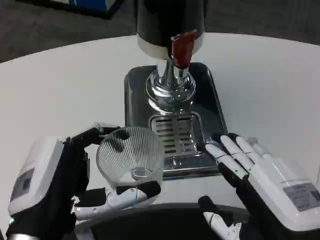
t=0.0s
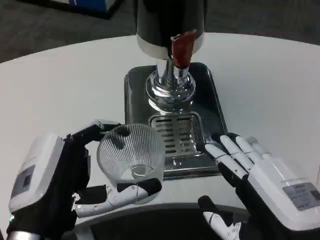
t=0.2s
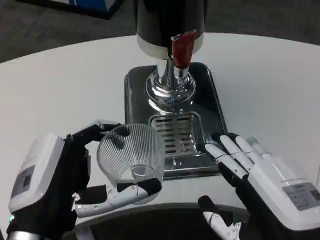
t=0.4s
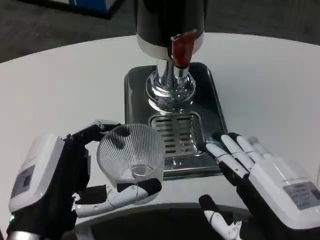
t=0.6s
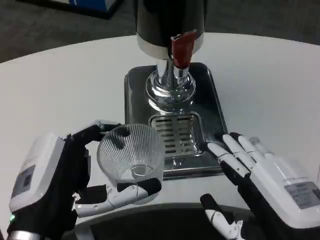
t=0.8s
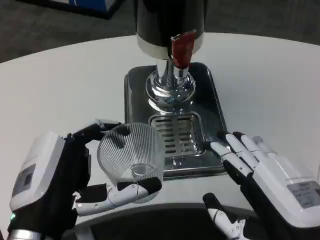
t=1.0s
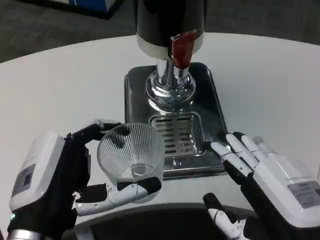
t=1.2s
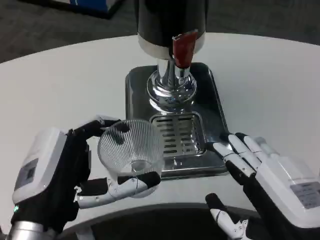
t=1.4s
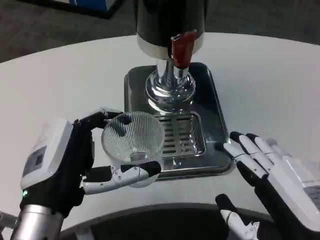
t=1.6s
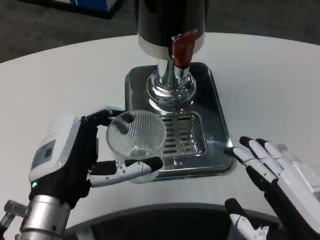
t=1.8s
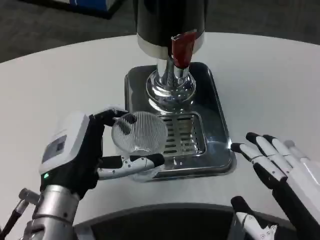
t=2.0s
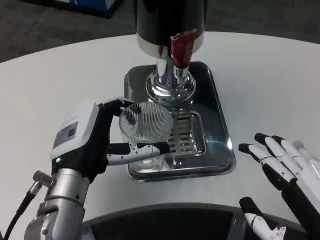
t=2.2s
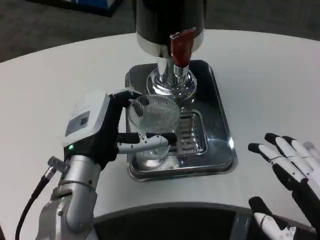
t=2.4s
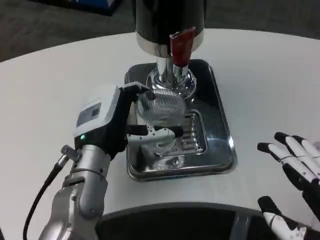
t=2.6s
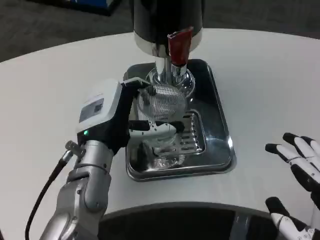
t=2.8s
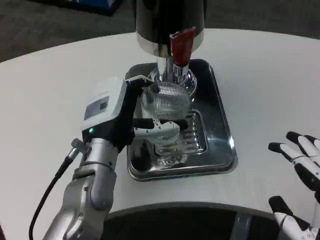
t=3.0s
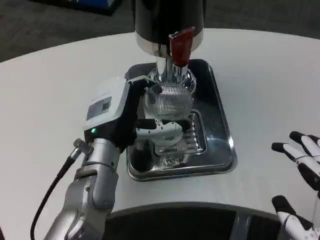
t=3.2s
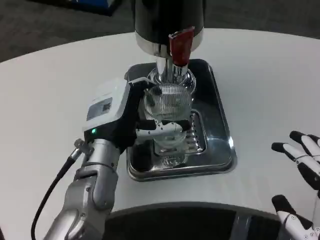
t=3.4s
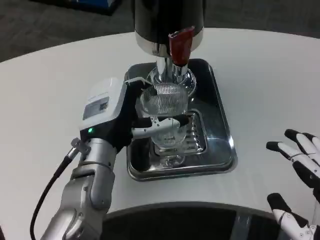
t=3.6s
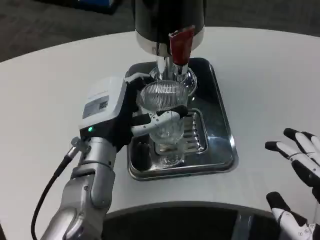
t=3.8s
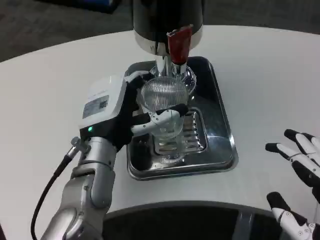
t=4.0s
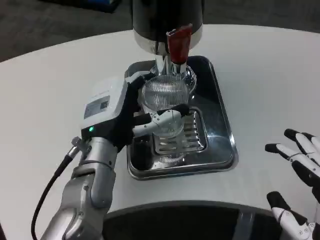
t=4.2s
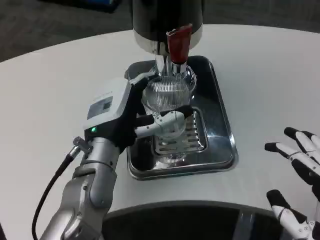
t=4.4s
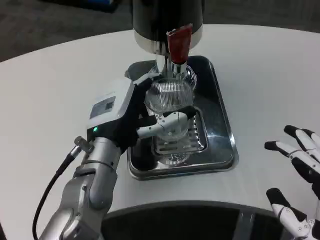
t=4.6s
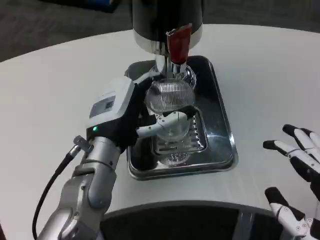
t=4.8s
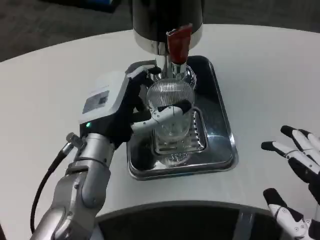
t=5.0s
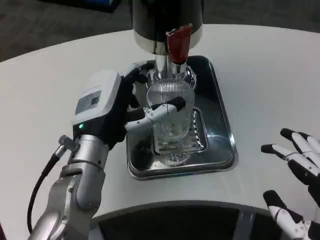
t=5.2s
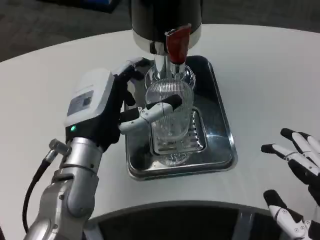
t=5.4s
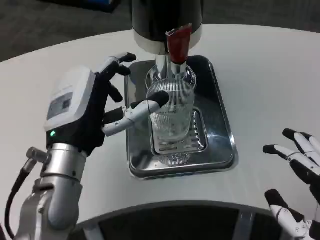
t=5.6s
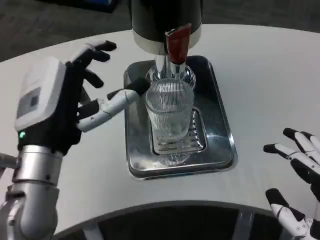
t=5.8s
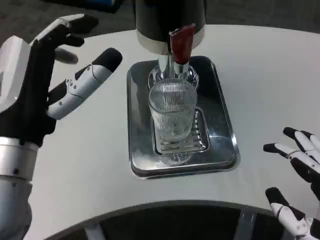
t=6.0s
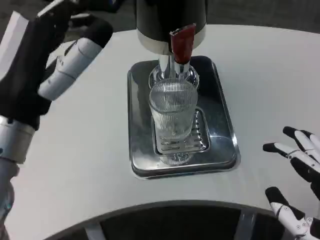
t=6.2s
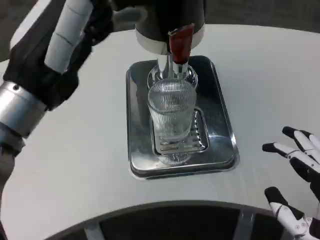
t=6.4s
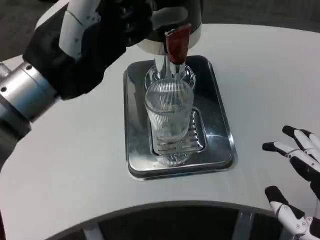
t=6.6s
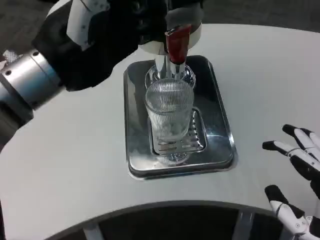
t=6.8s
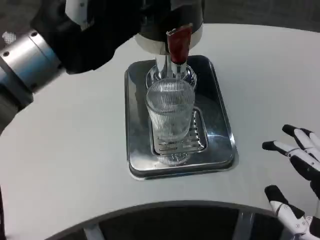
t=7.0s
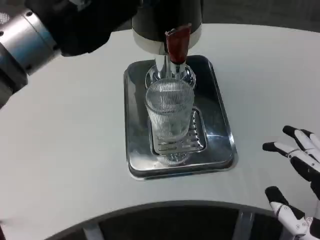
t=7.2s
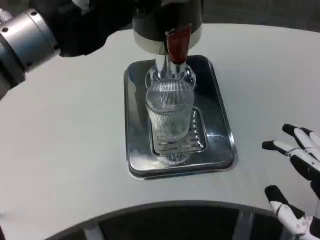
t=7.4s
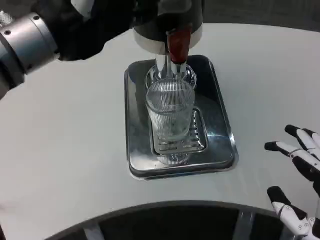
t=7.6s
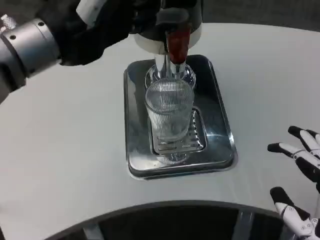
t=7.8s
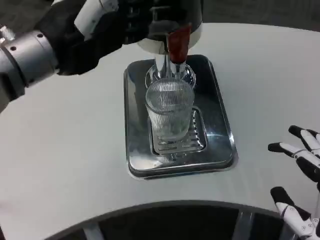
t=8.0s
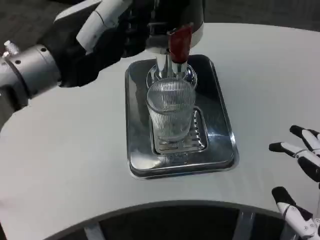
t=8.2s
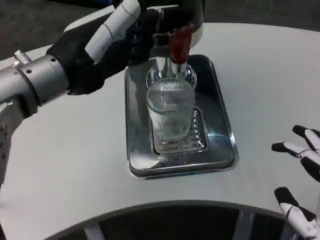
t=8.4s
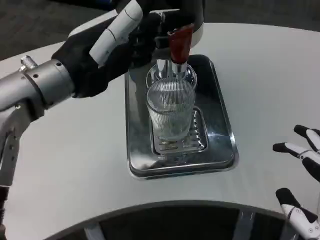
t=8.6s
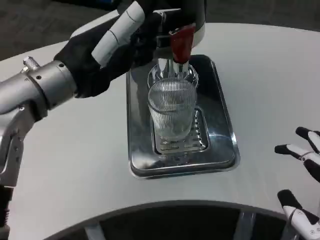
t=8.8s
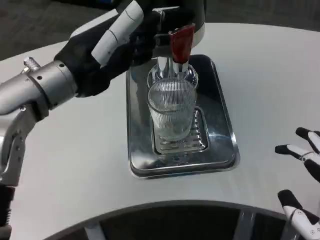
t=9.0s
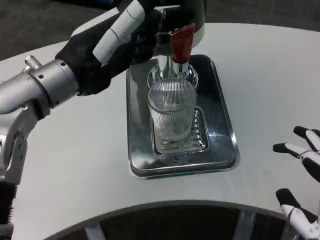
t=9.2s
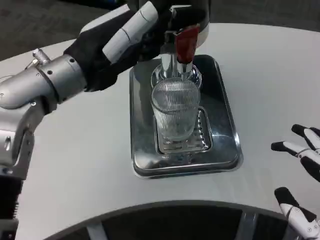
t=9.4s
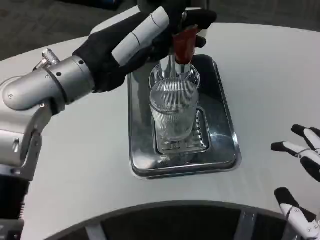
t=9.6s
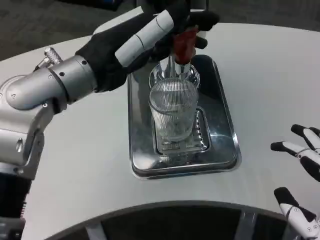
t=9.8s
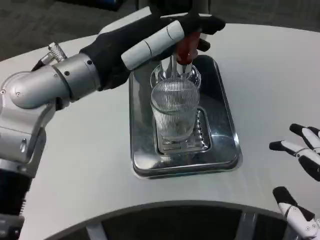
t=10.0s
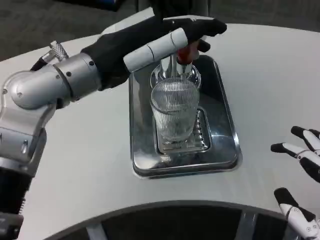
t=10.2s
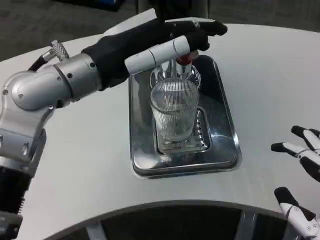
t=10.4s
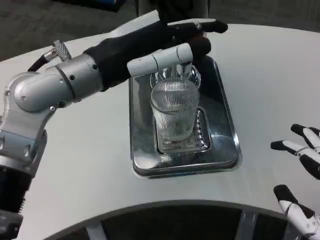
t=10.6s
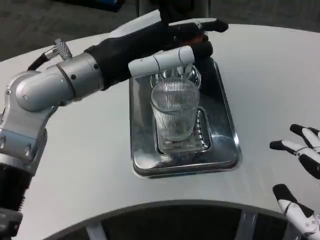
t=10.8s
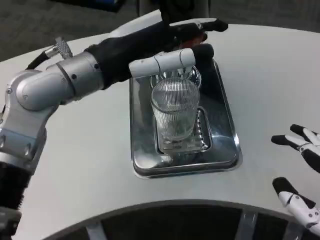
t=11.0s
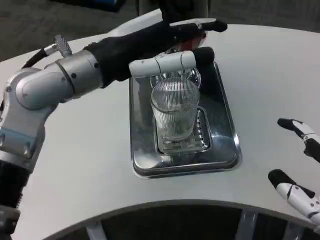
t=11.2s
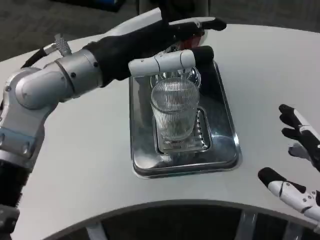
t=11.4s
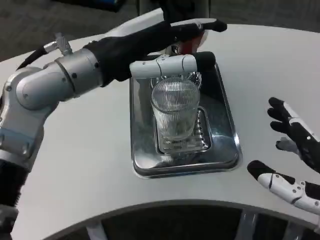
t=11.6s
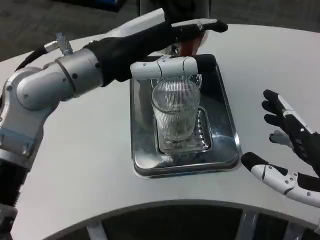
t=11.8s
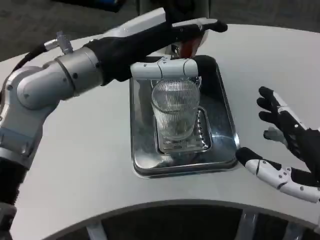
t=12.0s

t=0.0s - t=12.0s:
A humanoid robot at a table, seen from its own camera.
Task of the whole recording: Grasp the cup under the faucet to collect the drink, then remove the cup.
t=1.6s - t=3.0s: The right hand ends up about 5 cm from where it was. Meanwhile the left hand heads forward and to the right, covering about 15 cm.
t=3.0s - t=4.4s: Neither hand changes place.
t=4.4s - t=6.0s: The left hand heads backward, to the left and upward, covering approximately 10 cm.
t=6.0s - t=7.6s: The left hand moves upward and forward, some 15 cm.
t=7.6s - t=9.0s: The left hand is displaced downward by roughly 5 cm.
t=10.4s - t=12.0s: The right hand goes about 5 cm forward.

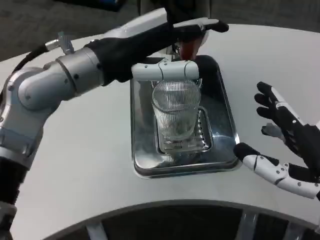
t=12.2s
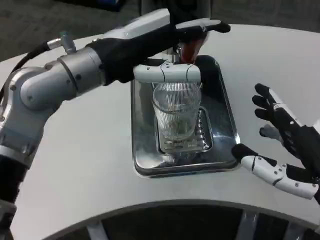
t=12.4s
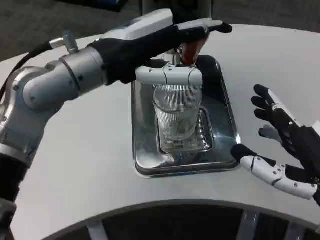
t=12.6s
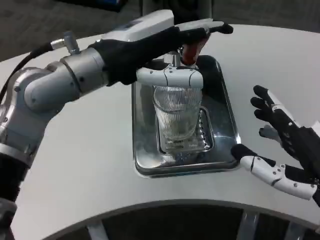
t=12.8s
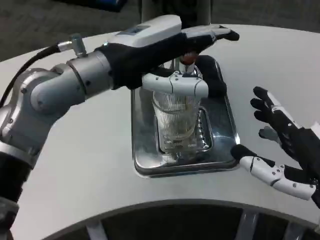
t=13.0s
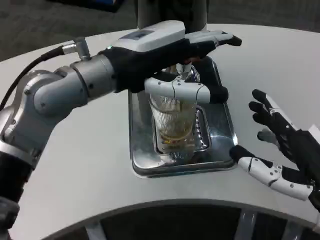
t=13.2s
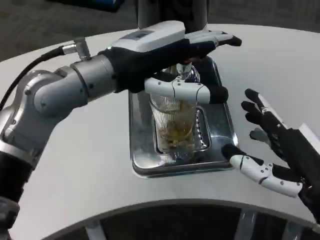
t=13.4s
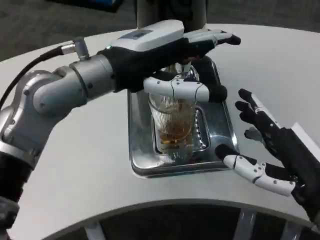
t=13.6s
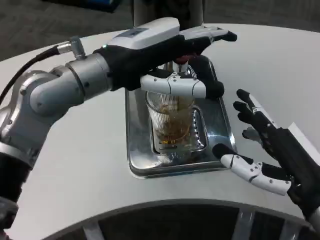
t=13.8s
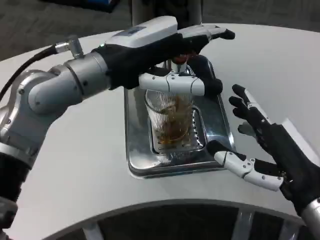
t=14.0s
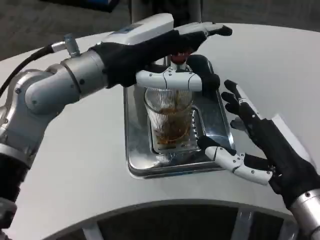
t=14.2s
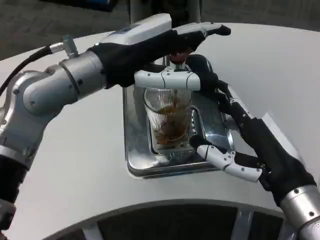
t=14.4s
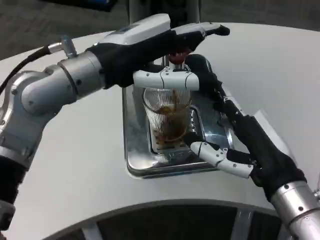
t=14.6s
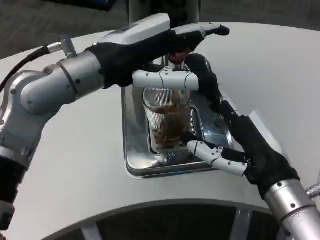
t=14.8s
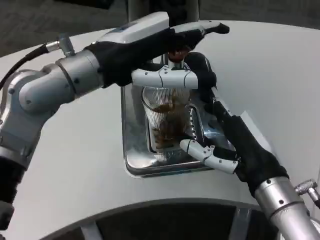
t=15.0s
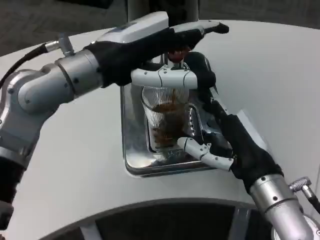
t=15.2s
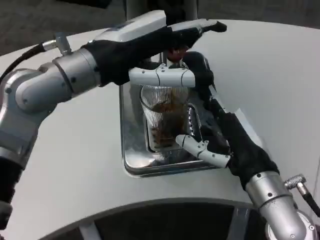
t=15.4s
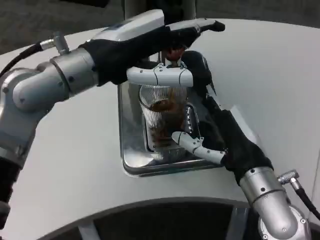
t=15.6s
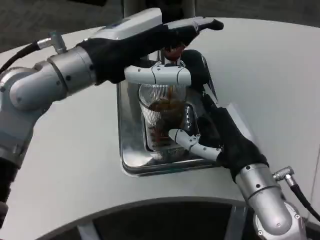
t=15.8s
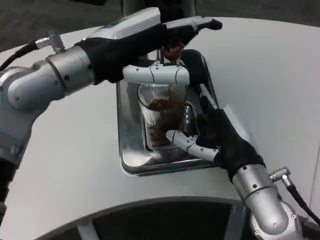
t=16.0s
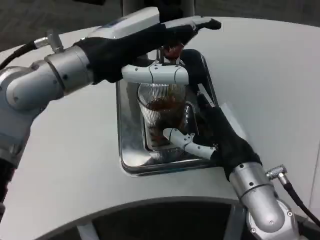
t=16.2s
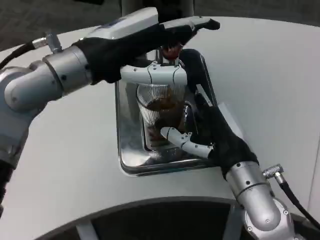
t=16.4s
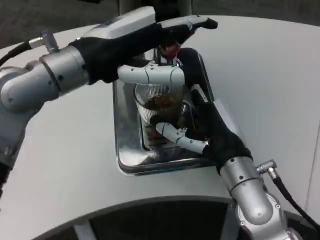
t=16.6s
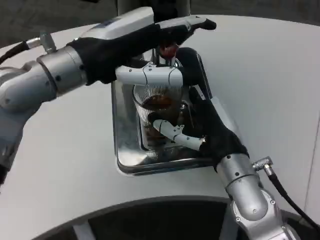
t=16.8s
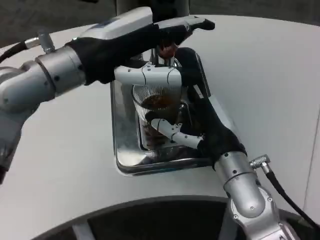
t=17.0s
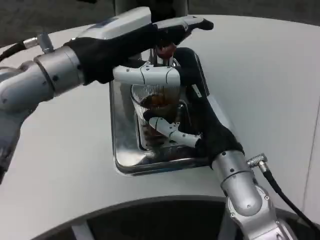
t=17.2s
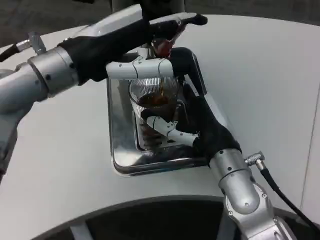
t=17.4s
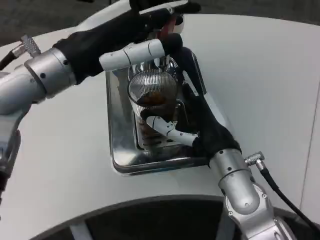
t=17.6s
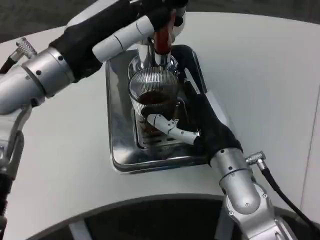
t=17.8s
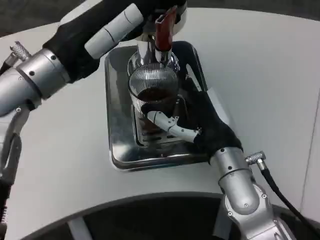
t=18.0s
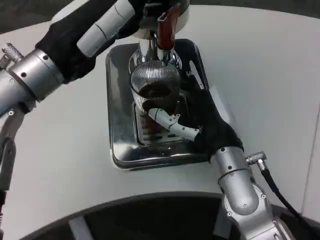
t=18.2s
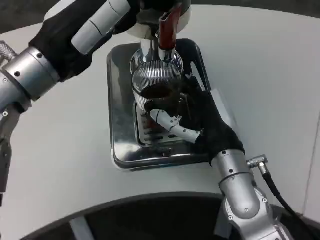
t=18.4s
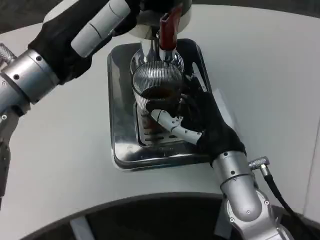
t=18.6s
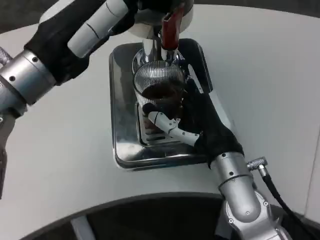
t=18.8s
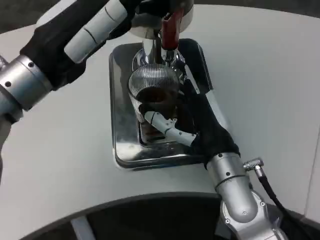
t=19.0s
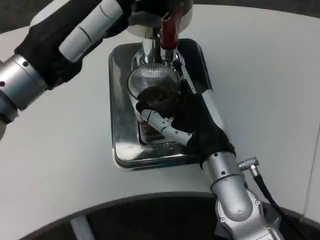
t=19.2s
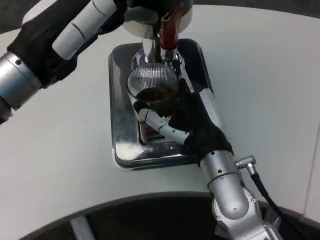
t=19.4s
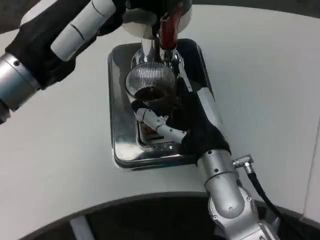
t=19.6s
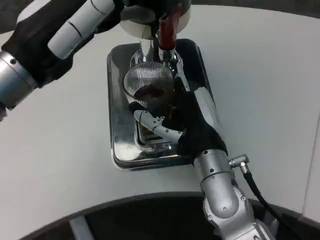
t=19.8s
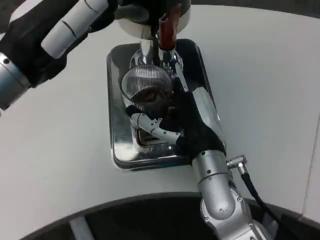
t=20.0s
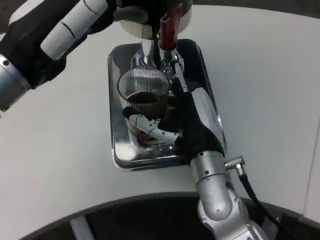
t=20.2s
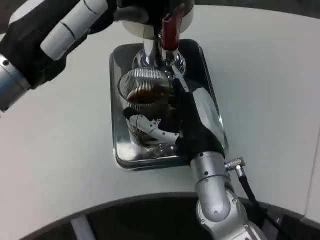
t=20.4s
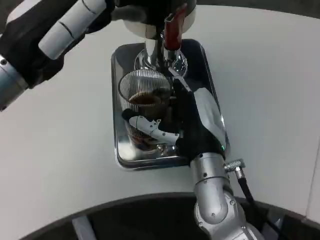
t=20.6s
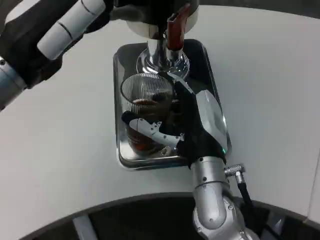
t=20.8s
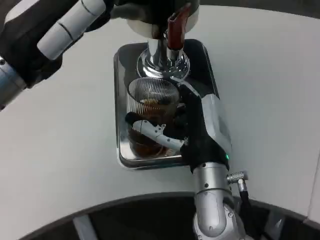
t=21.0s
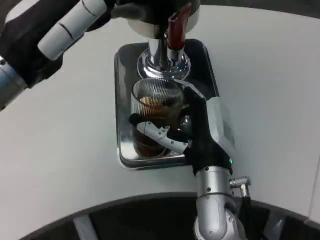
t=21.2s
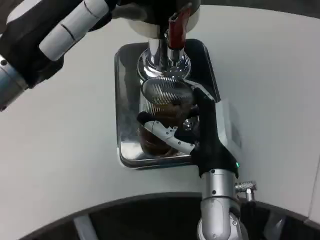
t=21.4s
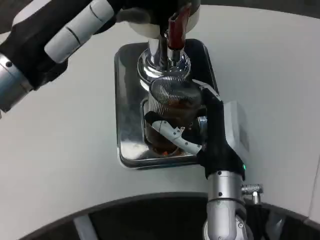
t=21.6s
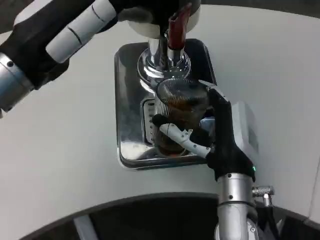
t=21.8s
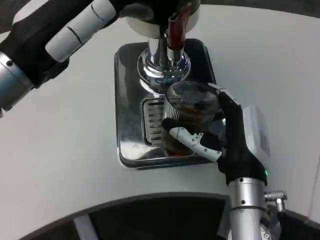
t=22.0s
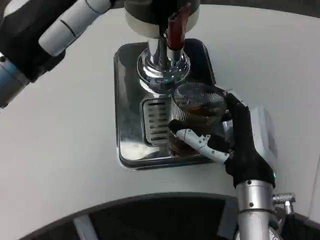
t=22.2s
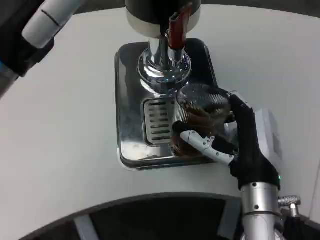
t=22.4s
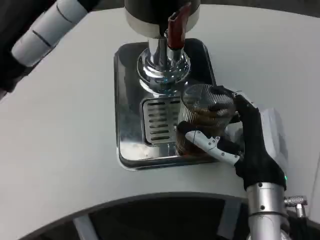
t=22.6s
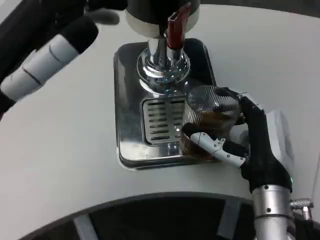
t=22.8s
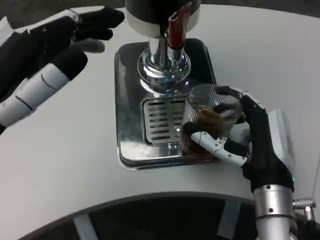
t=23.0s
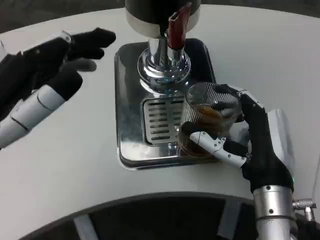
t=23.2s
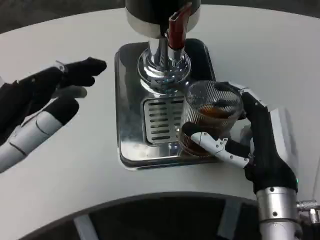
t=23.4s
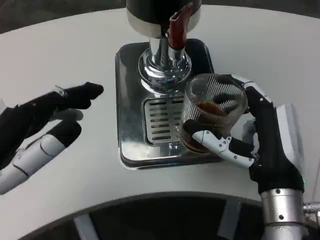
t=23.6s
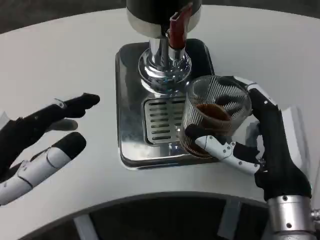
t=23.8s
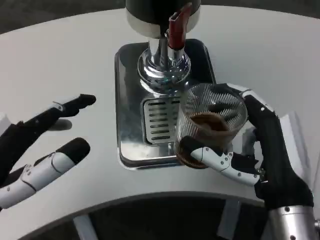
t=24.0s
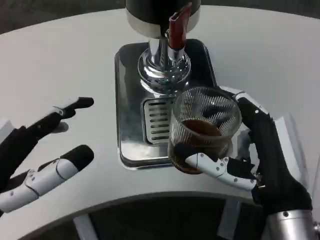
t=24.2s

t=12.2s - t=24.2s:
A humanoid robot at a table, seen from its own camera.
Task of the whole recording: Grasp the cup under the faucet to collect the drink, then remove the cup.
t=13.8s - t=15.2s: The right hand shifts some 10 cm to the left and forward.
t=21.2s - t=22.6s: The right hand goes approximately 5 cm to the right.
t=22.6s - t=24.2s: The left hand moves downward and backward, approximately 15 cm, while the right hand is displaced backward by about 5 cm.
